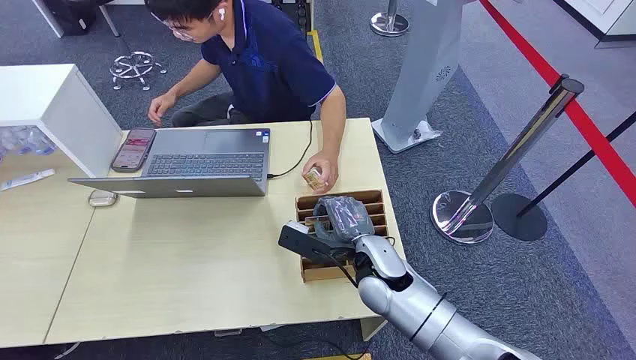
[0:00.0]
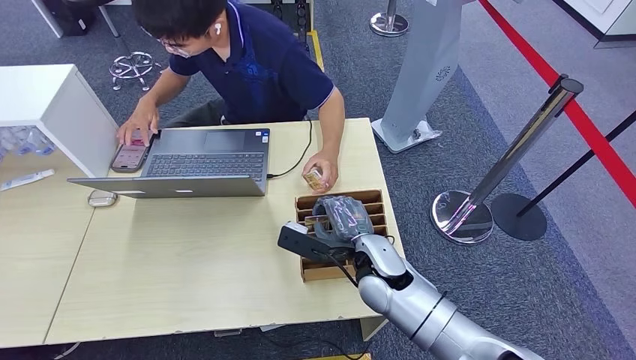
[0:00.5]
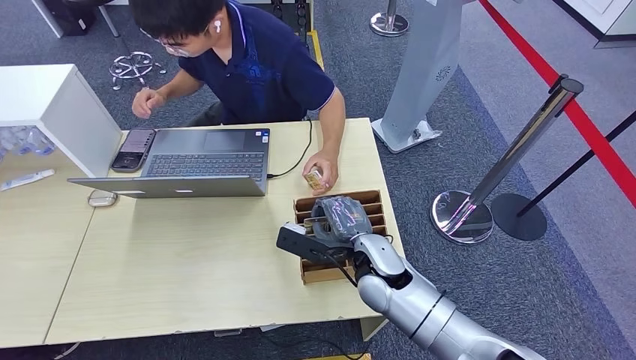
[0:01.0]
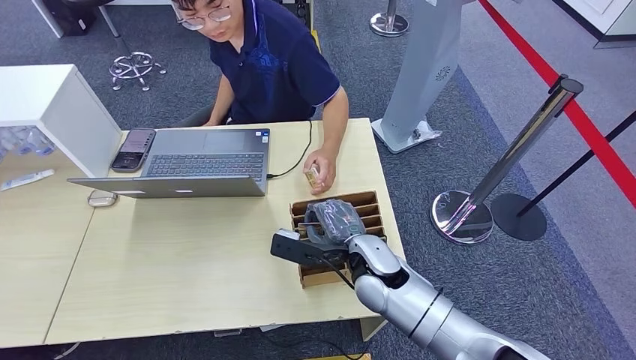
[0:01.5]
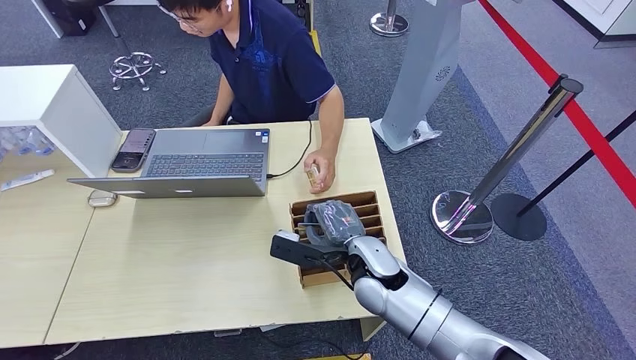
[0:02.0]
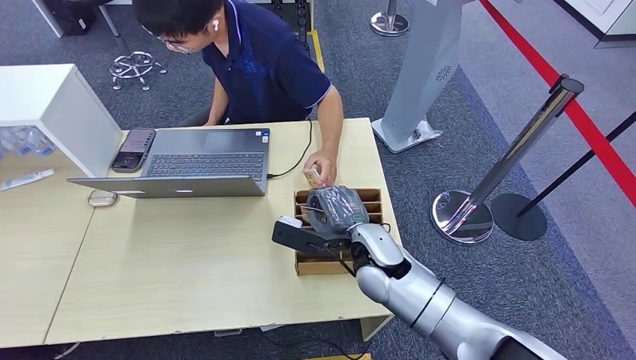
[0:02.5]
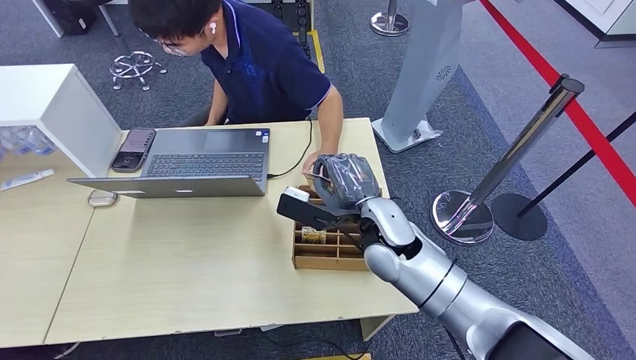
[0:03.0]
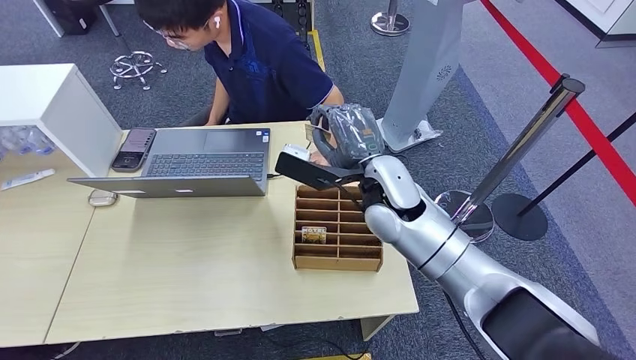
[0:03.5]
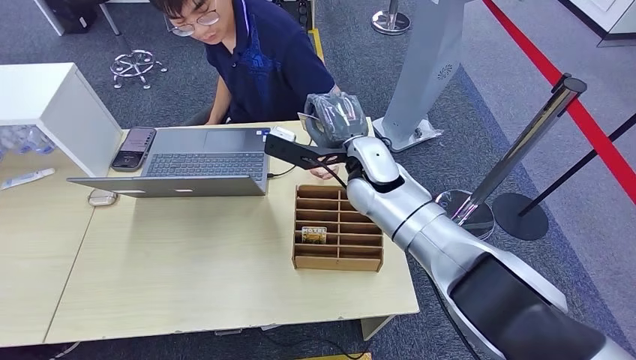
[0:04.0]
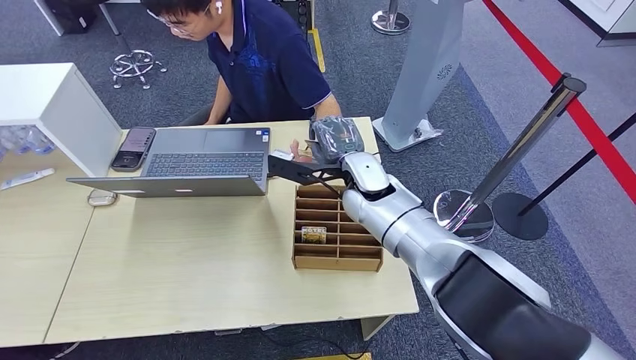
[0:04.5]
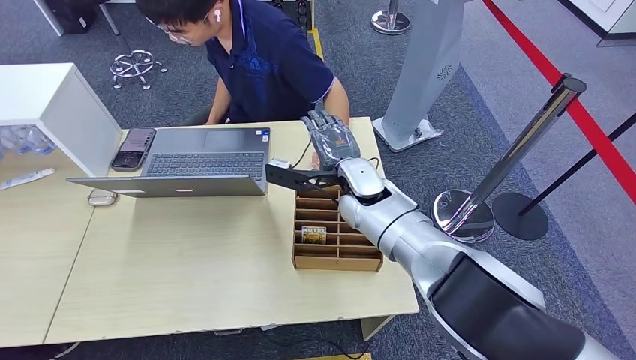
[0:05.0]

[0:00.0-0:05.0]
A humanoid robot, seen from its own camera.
Step, 0:00.0 to 0:02.5: Pick up the room card from the card holder.
0:02.5 to 0:05.0: The right hand shifts about 10 cm forward.
